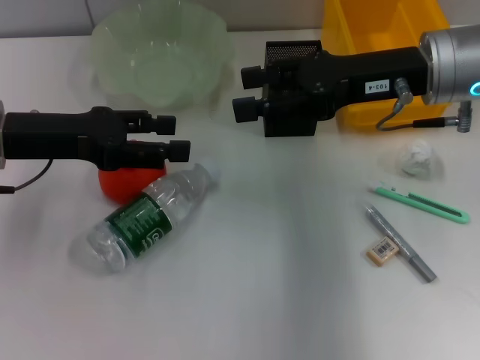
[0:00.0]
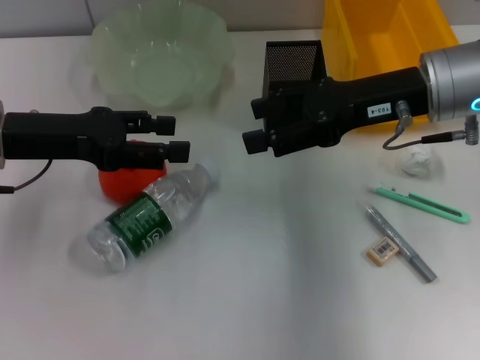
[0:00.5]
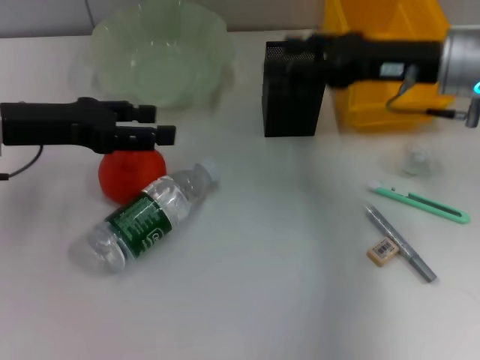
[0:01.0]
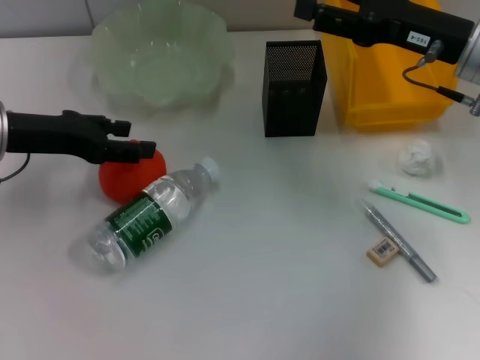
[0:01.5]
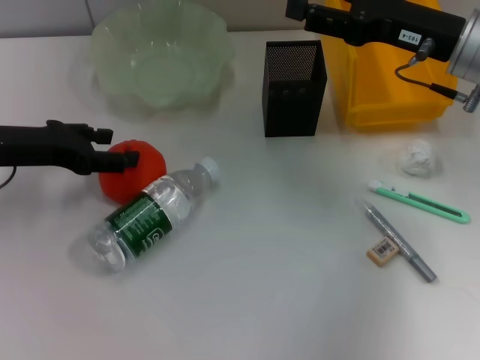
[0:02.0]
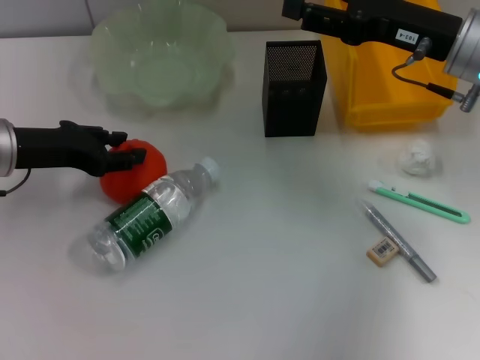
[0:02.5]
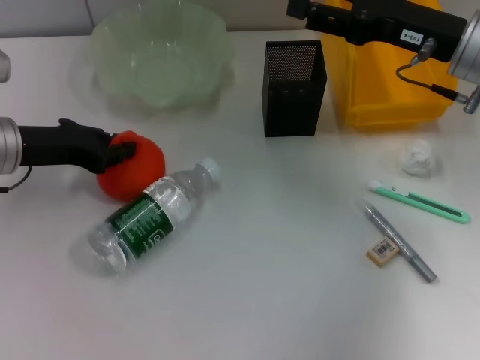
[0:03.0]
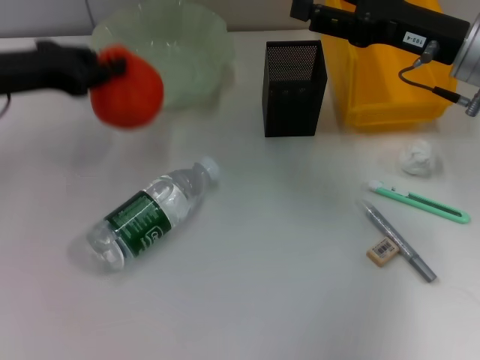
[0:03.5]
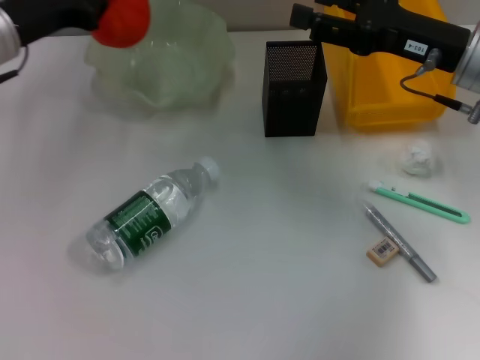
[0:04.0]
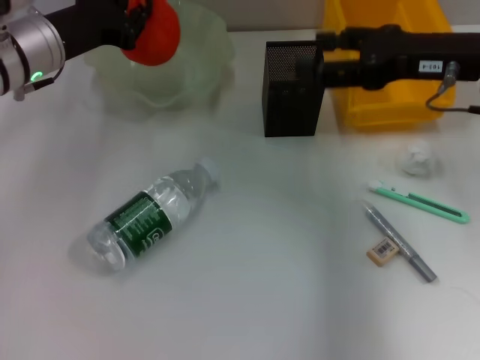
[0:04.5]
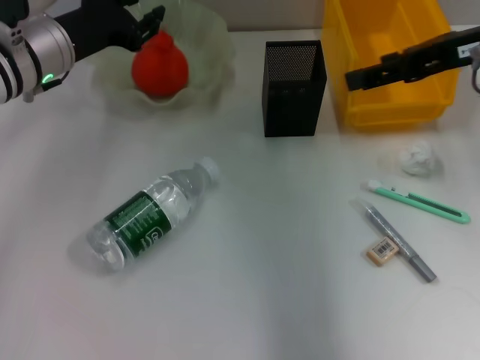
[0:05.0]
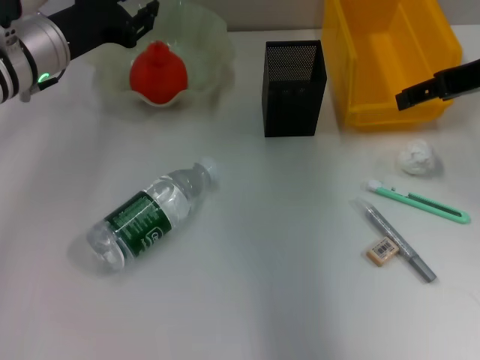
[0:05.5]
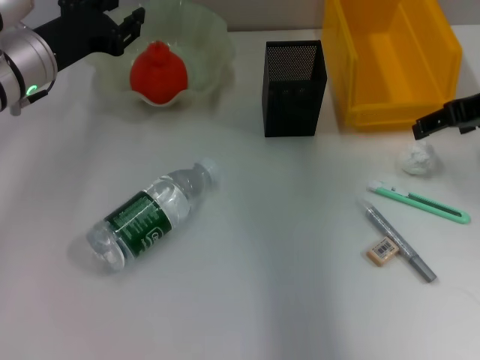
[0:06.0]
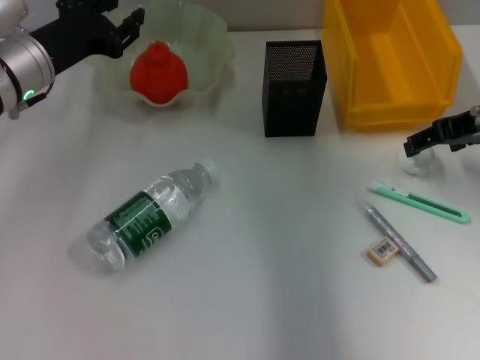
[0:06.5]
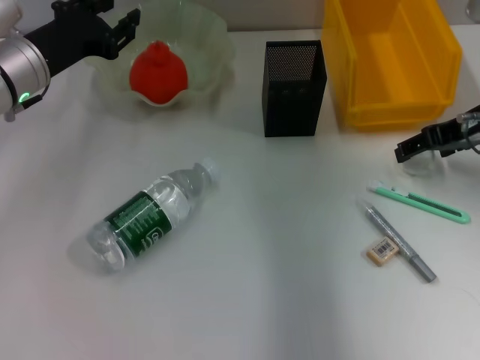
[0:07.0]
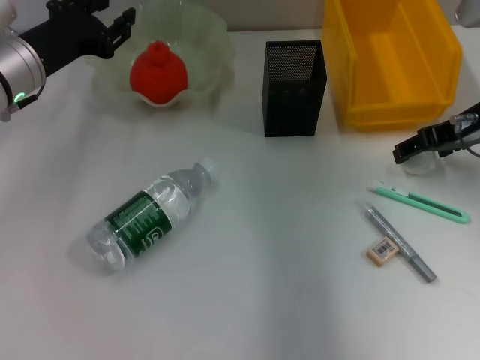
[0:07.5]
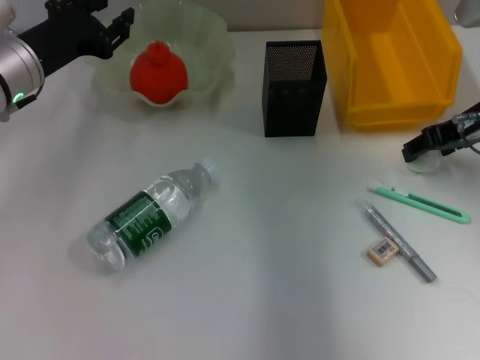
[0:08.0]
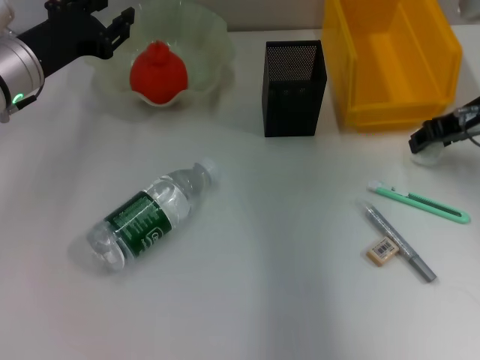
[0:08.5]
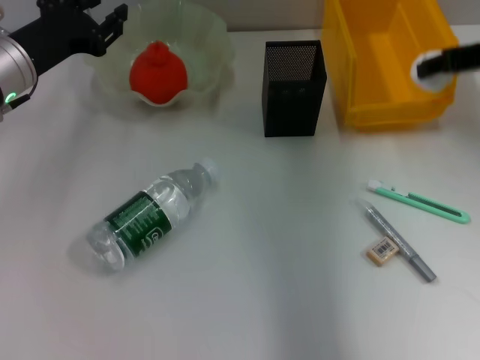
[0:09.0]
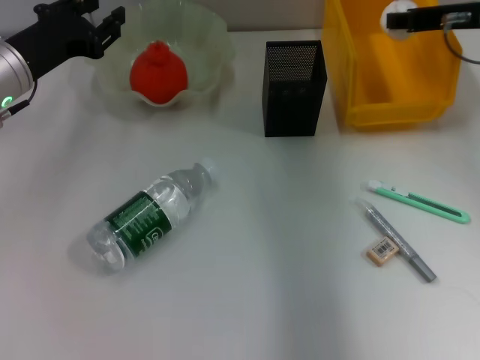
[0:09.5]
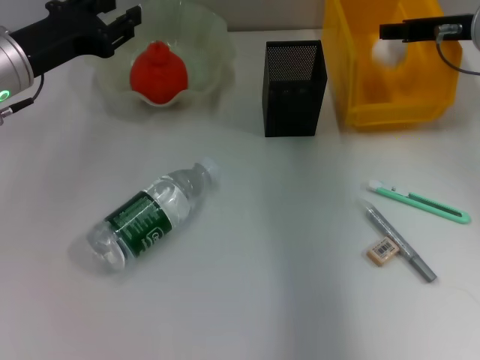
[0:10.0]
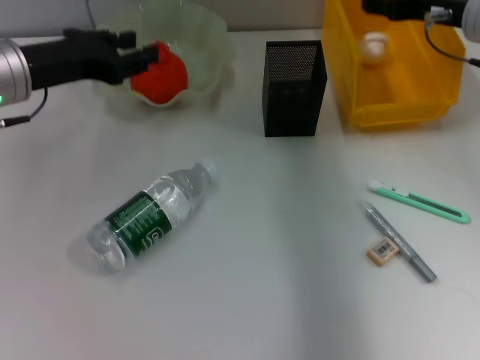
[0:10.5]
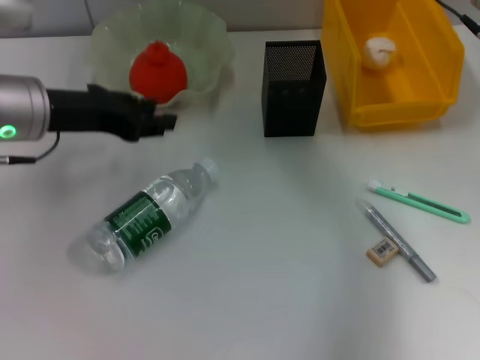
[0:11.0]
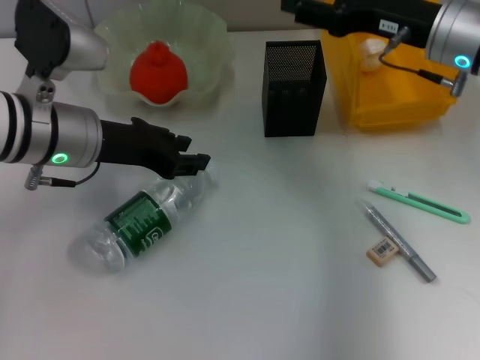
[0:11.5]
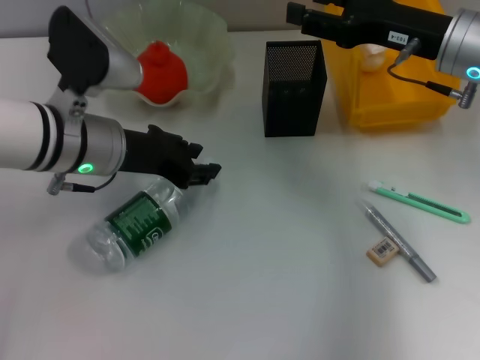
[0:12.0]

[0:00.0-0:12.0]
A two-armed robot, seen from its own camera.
Step, 0:00.0 to 0:03.0: Grab the orange with the left hand.
Step, 0:03.5 to 0:04.5: Place the orange into the fruit bowl with the left hand.
Step, 0:05.5 to 0:08.0: Grab the paper ball with the right hand.
Step, 0:08.5 to 0:10.0: Place the paper ball into the trash can with the right hand.
0:02.0 to 0:04.0: The left gripper heads forward, covering some 5 cm, and closes its fingers.
0:04.0 to 0:06.0: The left gripper opens.
0:06.0 to 0:08.0: The right gripper changes place by about 5 cm.
0:10.0 to 0:12.0: The left gripper is displaced to the right by roughly 10 cm, while the right gripper moves about 5 cm.

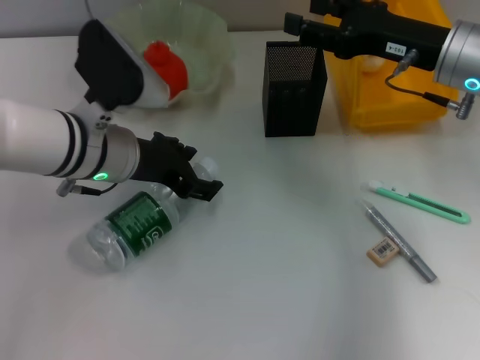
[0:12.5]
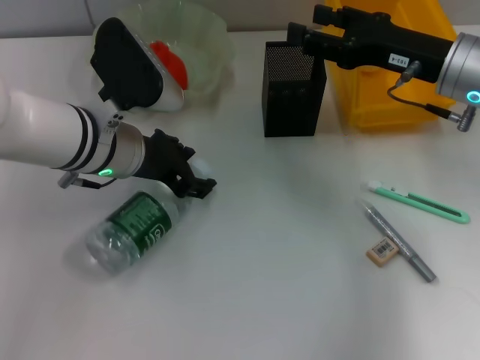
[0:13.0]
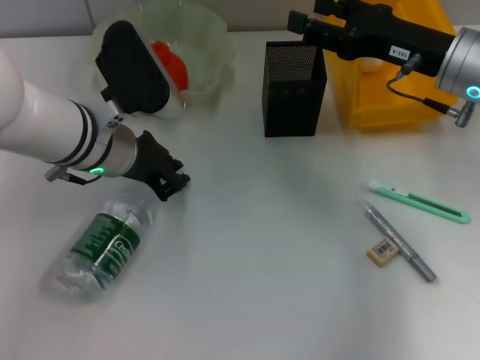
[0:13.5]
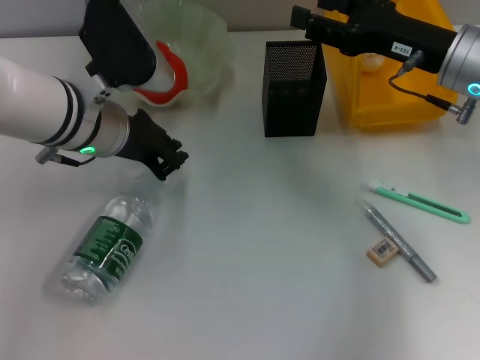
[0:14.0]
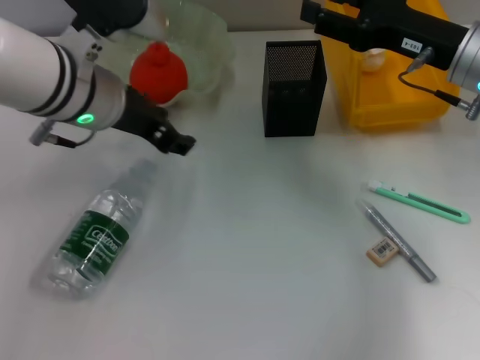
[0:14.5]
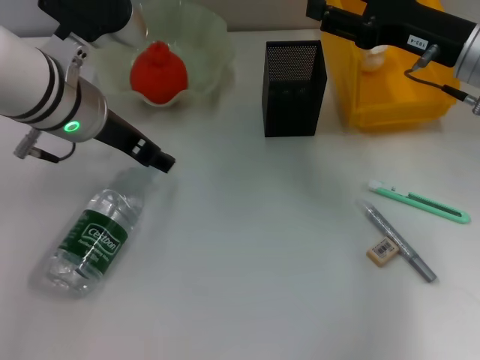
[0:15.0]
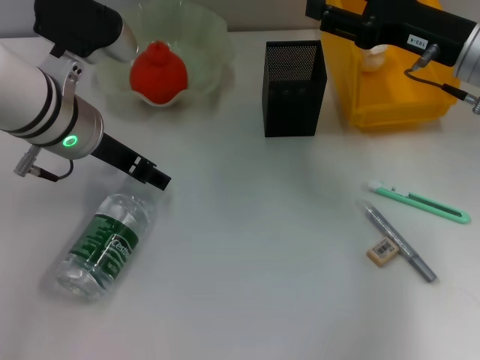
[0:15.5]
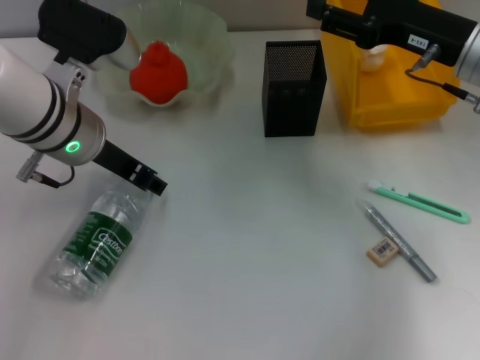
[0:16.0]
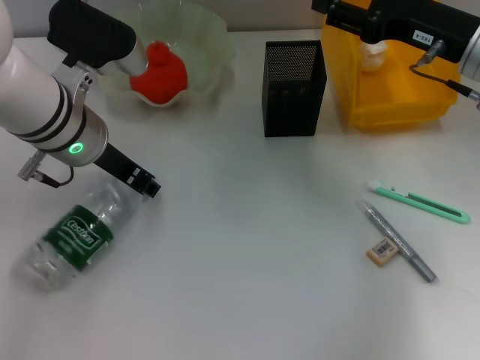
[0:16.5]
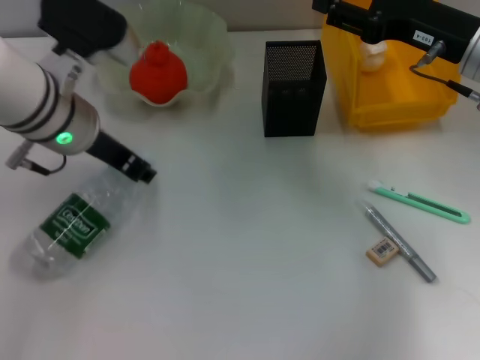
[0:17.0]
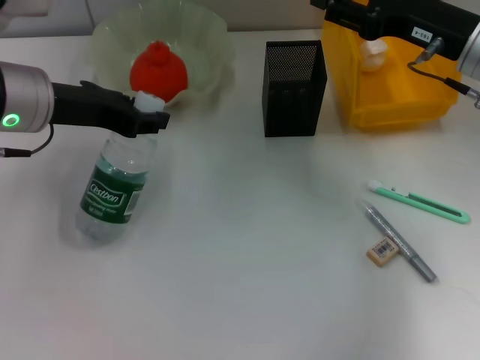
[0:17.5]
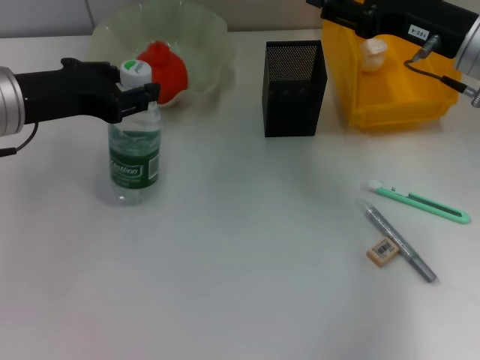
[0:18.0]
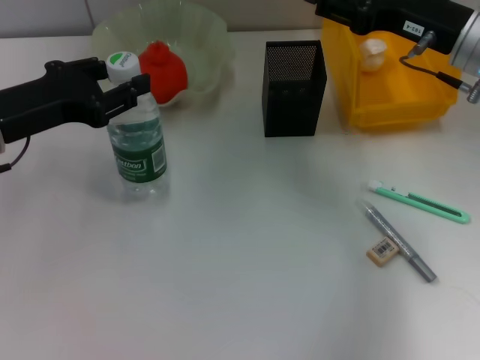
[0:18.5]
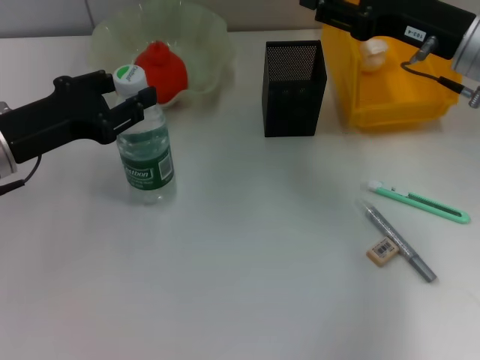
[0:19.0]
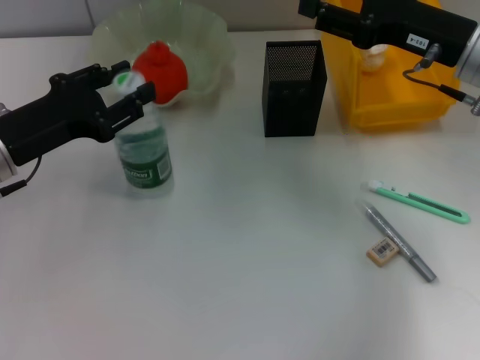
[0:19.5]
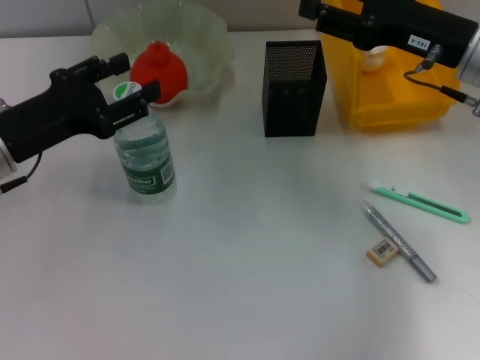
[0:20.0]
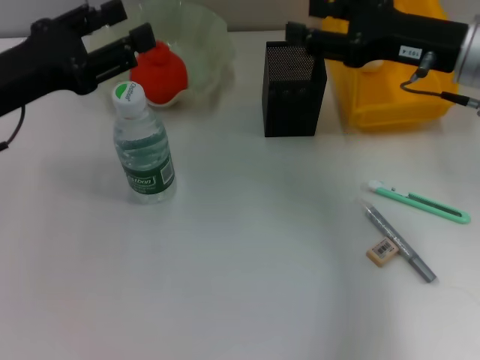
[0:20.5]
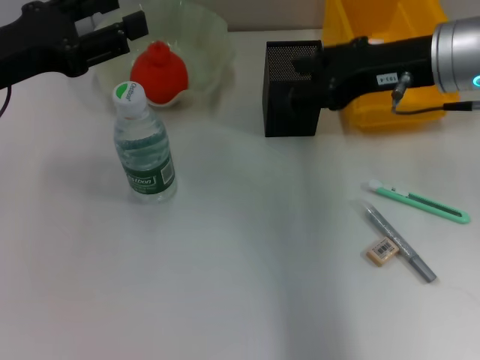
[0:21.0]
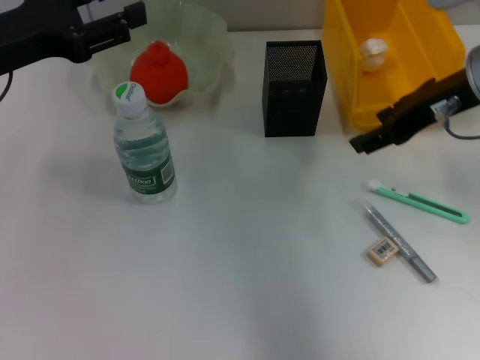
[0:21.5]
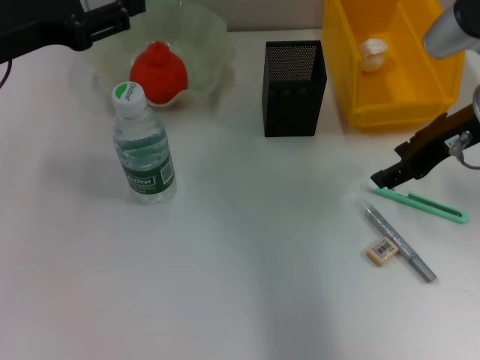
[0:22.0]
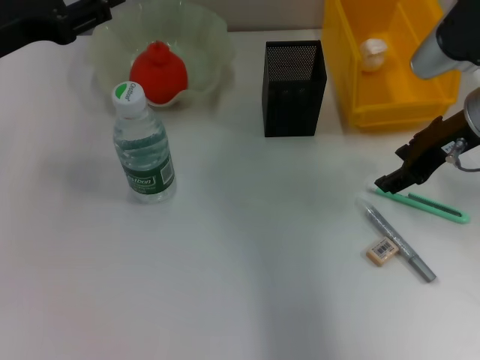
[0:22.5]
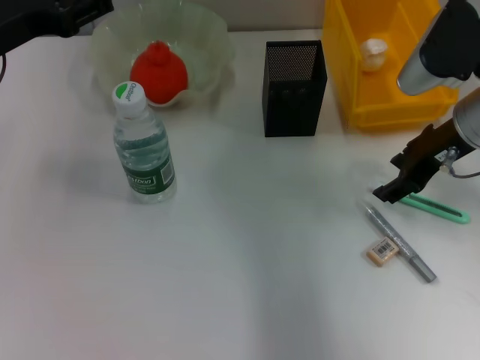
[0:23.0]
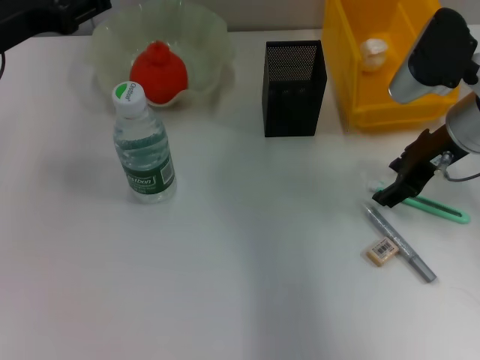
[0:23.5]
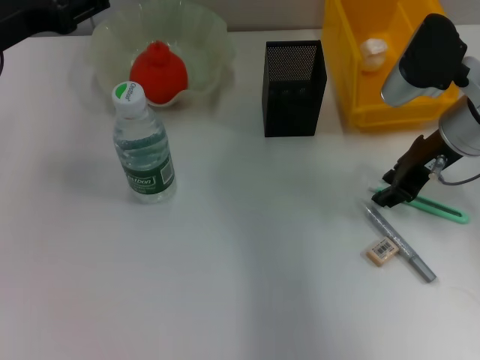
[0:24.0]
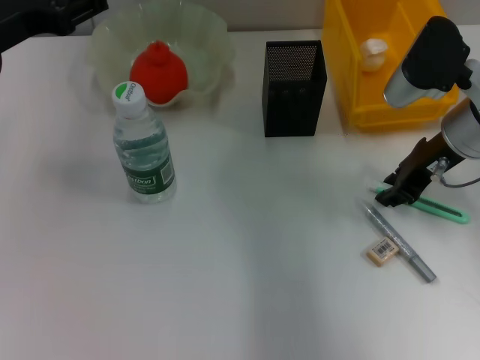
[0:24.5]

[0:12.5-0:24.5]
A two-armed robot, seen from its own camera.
Step, 0:12.5 to 0:16.5: Grab the water bottle with the left hand.
Step, 0:17.0 to 0:19.5: Place the water bottle on the table with the left hand.
0:12.5 to 0:14.5: The left gripper is displaced upward by roughly 5 cm, and closes, then reopens.
0:14.5 to 0:16.5: The grippers make only small movements.
0:16.5 to 0:18.5: The left gripper goes about 10 cm to the left.
0:18.5 to 0:20.5: The grippers make only small movements.
0:22.5 to 0:24.5: The right gripper closes its fingers.

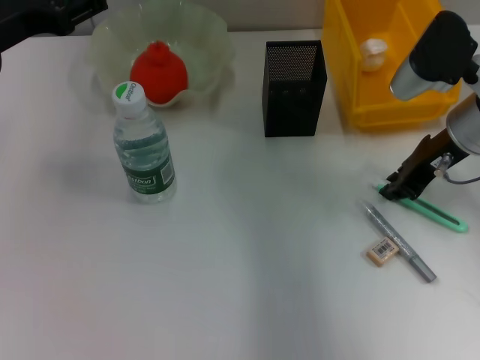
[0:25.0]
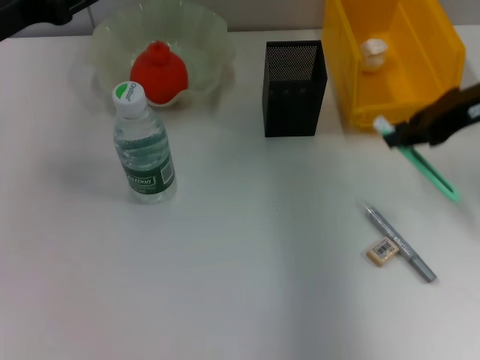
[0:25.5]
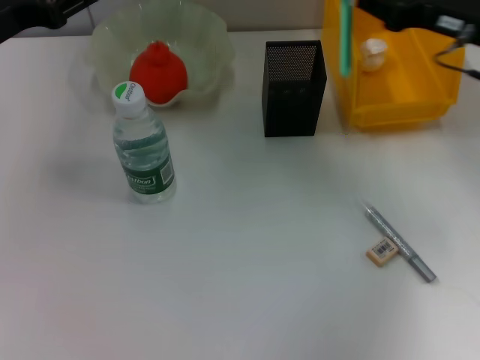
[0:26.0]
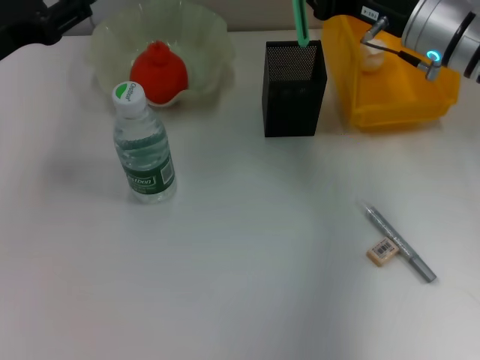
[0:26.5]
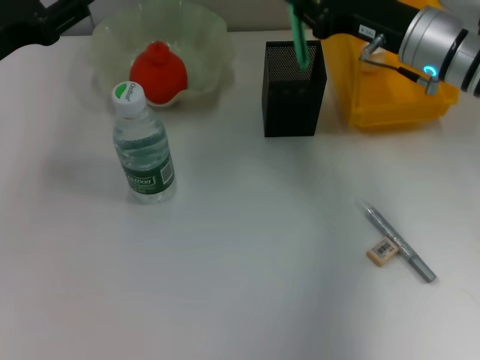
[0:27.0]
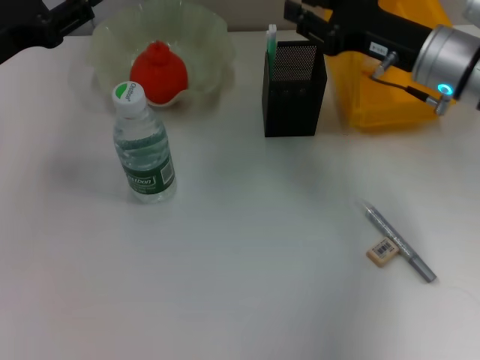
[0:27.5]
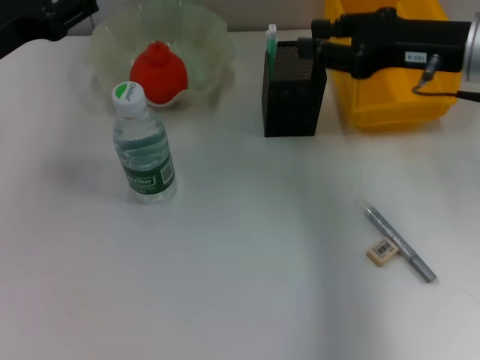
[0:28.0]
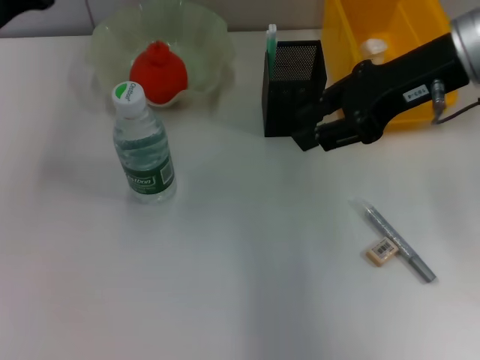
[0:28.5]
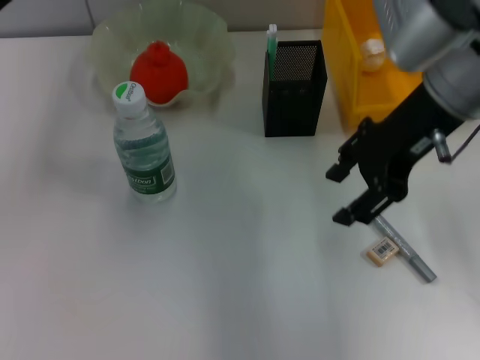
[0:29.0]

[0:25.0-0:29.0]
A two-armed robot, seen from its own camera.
Step, 0:25.0 to 0:27.0: Place the blue utility knife into the pen holder with the right hand.
0:25.0 to 0:27.0: The right gripper reaches approximately 5 cm to the right, then returns.
0:27.0 to 0:29.0: The right gripper goes about 10 cm upward and backward.
